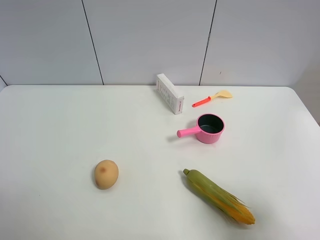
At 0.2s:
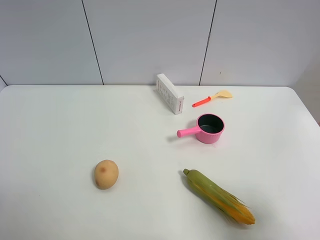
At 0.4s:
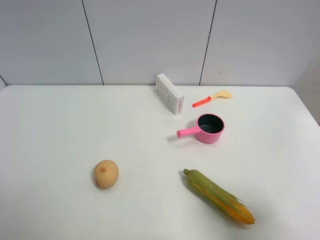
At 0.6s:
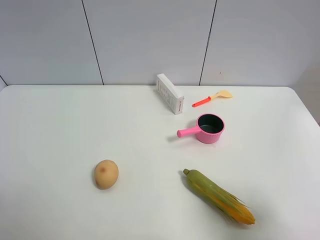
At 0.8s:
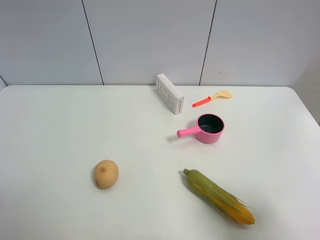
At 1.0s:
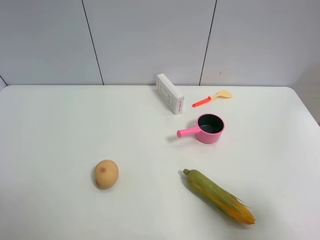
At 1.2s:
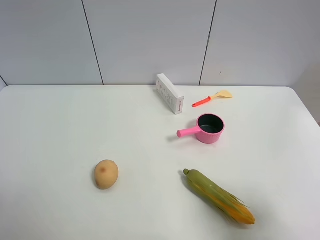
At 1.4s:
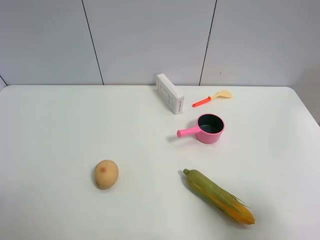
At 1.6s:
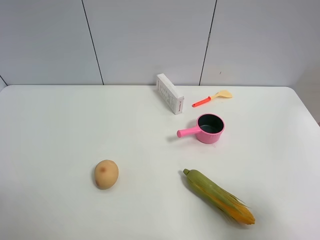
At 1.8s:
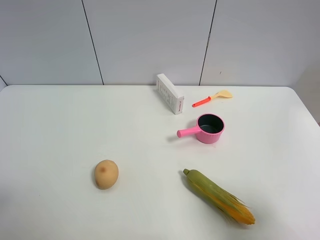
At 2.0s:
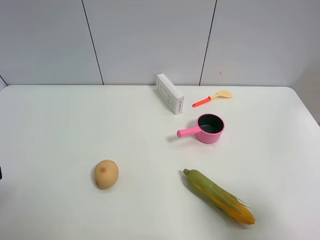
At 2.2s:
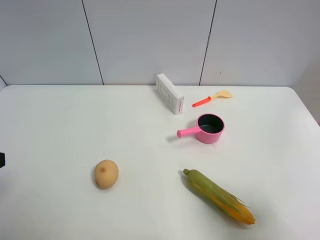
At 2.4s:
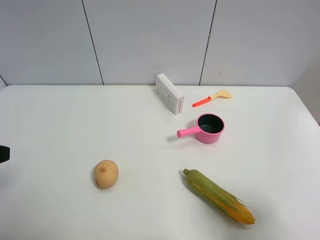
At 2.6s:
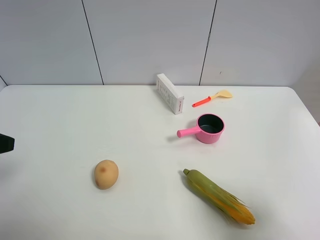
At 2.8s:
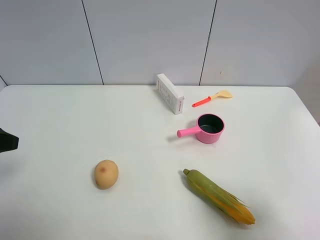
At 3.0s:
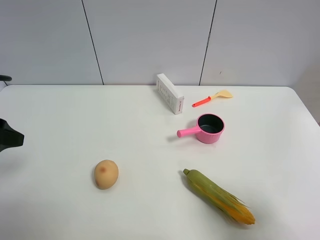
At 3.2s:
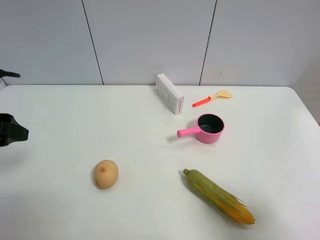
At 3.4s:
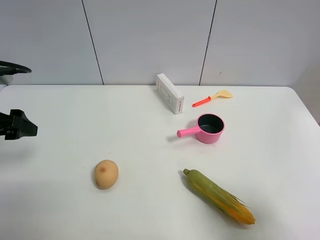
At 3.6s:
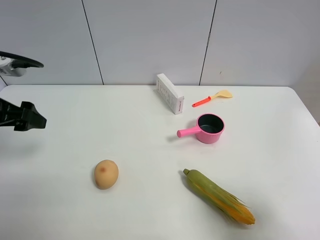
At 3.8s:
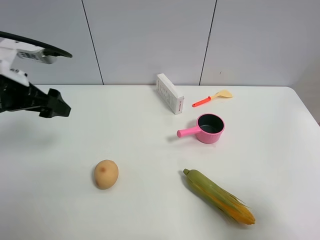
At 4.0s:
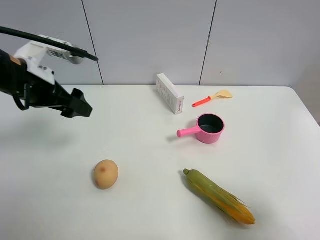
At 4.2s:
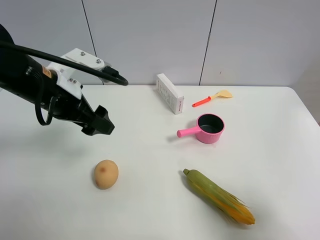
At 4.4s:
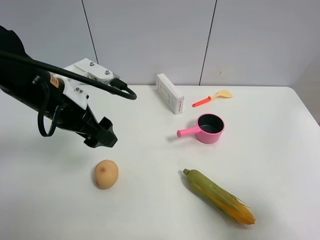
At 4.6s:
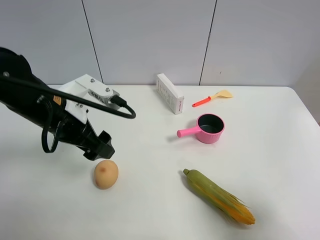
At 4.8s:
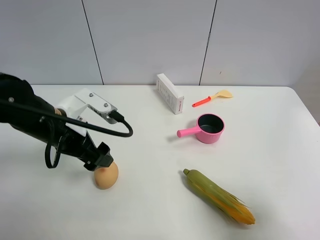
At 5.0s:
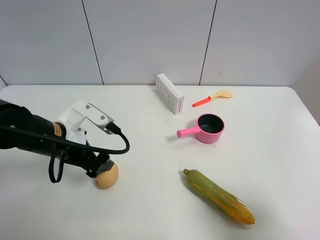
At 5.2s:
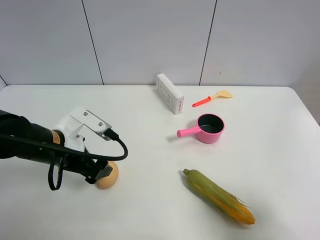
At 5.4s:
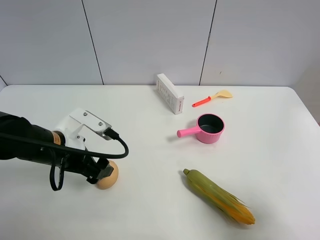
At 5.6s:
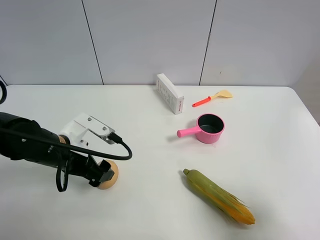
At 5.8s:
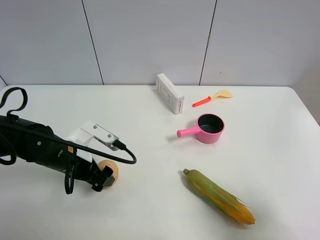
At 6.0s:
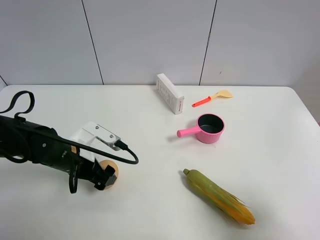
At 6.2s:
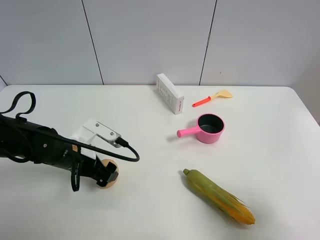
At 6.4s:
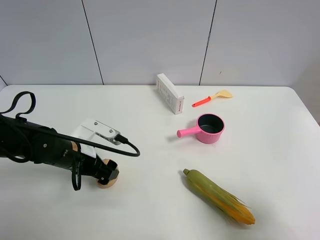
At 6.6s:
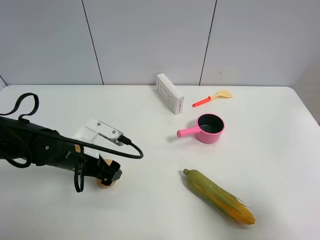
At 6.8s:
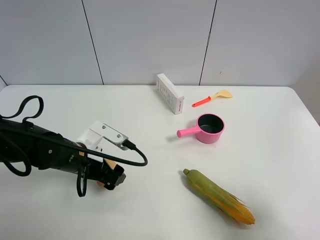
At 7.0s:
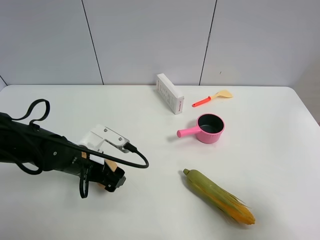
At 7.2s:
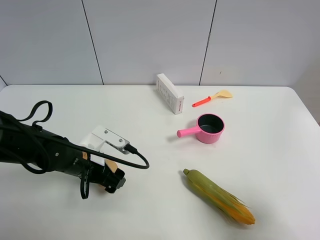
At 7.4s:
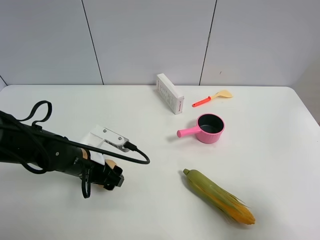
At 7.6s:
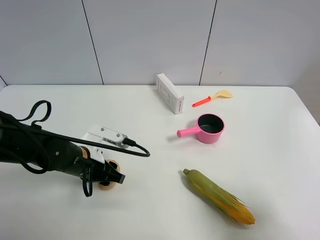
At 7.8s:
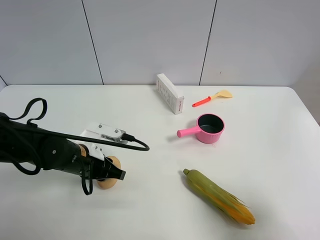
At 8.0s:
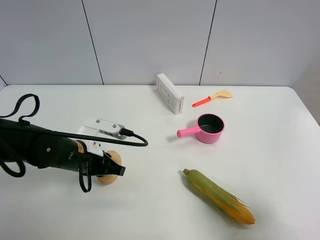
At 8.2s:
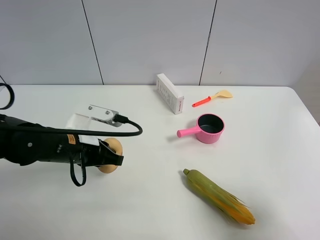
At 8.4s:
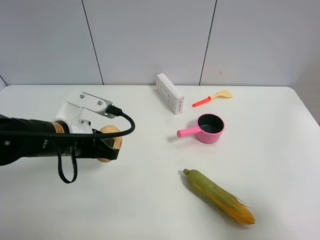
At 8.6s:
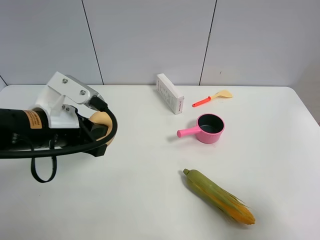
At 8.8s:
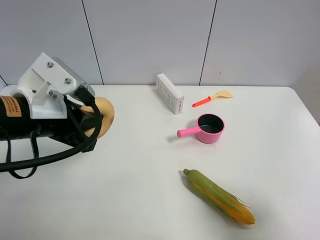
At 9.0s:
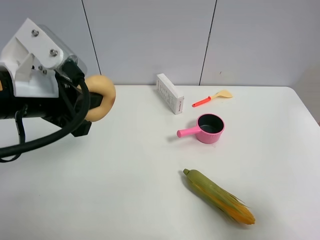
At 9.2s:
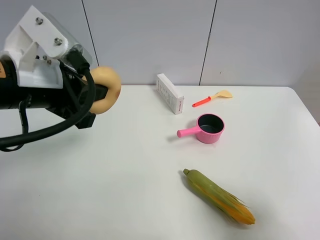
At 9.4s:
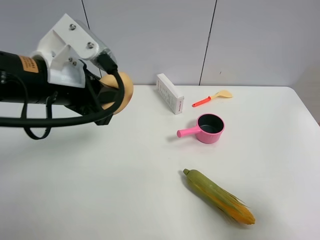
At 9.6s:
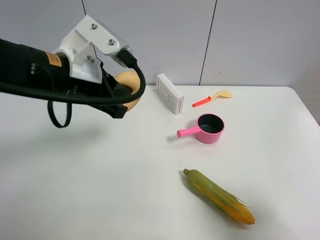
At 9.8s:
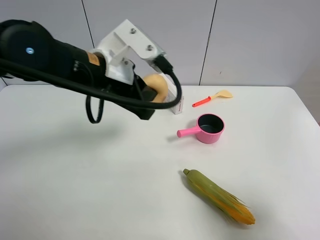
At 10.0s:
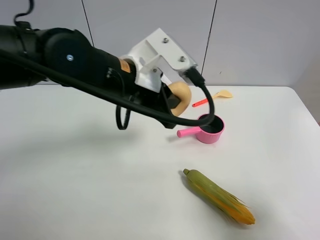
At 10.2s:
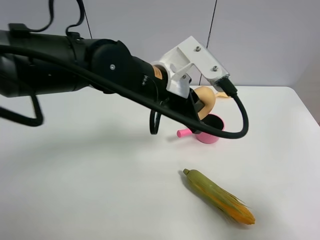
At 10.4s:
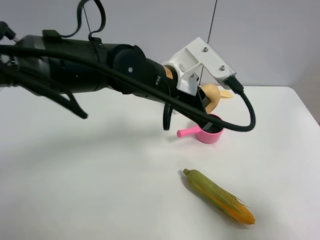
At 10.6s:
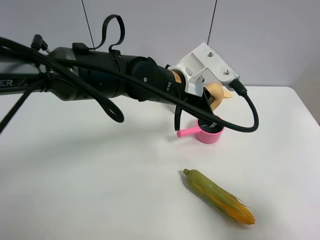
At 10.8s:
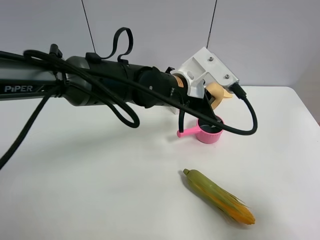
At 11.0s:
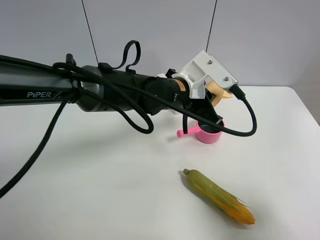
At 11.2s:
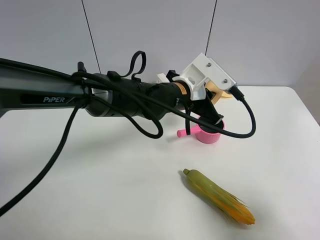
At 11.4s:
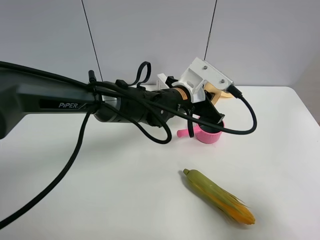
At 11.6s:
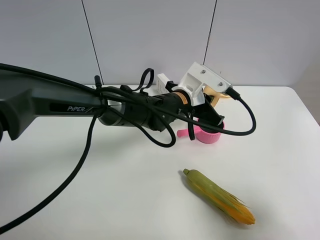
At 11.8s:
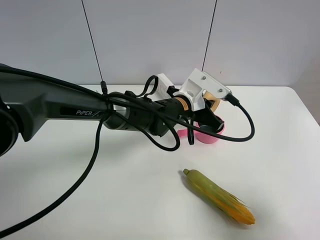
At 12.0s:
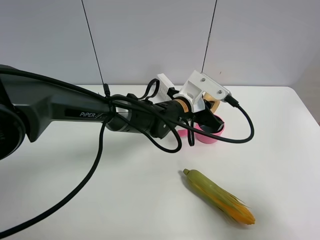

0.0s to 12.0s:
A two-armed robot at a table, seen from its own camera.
Task of the whole recording: the gripper move the object.
Step, 0.0s to 7.6s: Grasp the egg yolk pastry with the left gripper.
1.6s to 3.0s: The left gripper shifts approximately 15 cm forward.
3.0s to 4.4s: The left gripper goes some 15 cm to the right and forward.
4.4s to 6.0s: The left gripper goes some 15 cm downward.
6.0s to 7.6s: The left gripper closes its fingers.
7.6s to 9.0s: The left gripper is displaced upward by roughly 20 cm.
9.0s to 10.4s: The left gripper goes about 20 cm to the right and forward.
10.4s to 12.0s: The left gripper heads downward, covering roughly 10 cm.

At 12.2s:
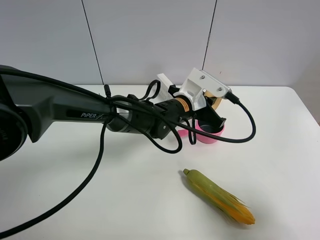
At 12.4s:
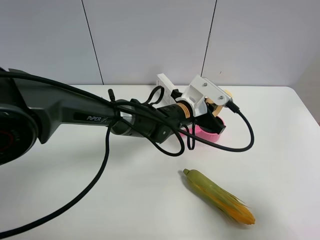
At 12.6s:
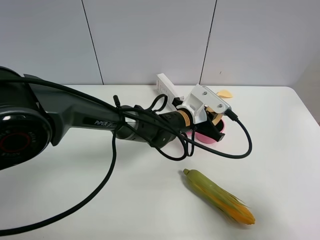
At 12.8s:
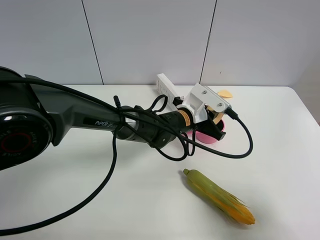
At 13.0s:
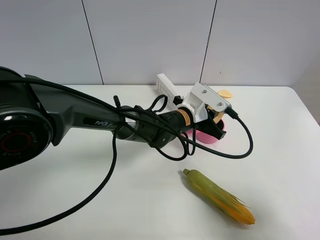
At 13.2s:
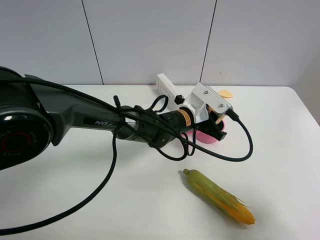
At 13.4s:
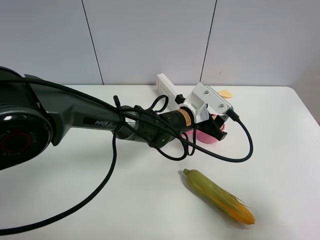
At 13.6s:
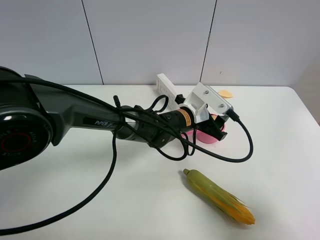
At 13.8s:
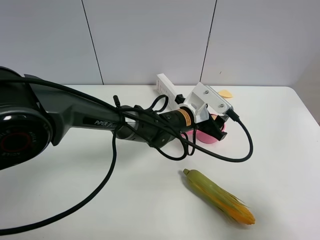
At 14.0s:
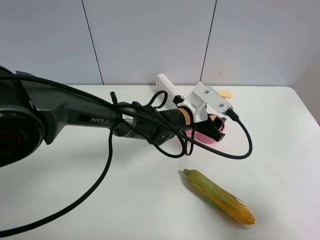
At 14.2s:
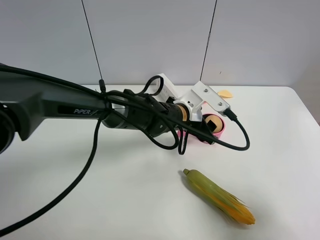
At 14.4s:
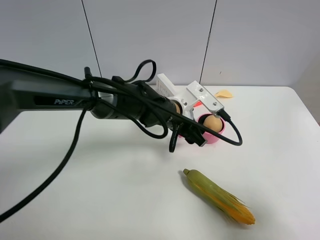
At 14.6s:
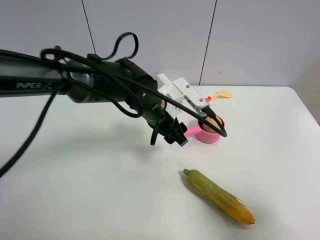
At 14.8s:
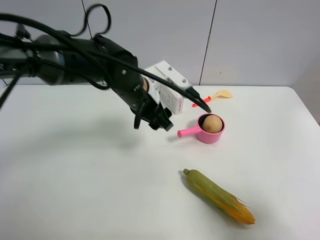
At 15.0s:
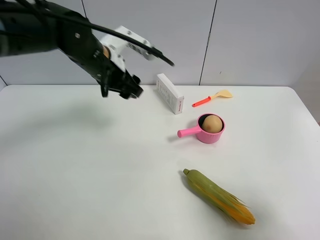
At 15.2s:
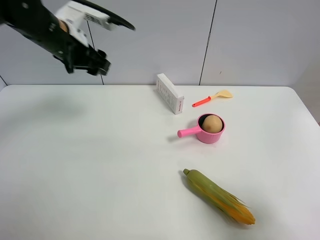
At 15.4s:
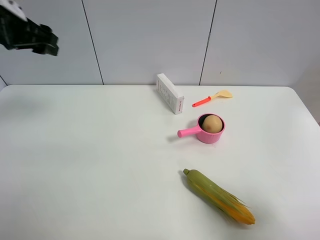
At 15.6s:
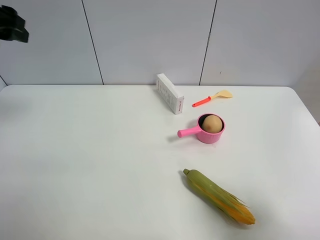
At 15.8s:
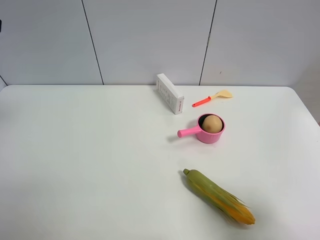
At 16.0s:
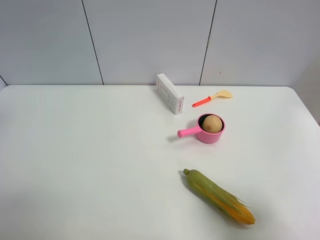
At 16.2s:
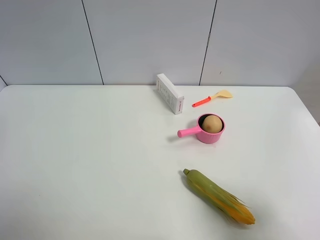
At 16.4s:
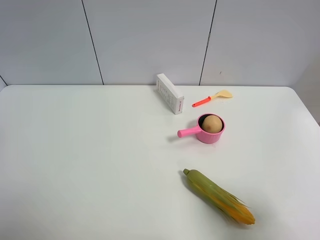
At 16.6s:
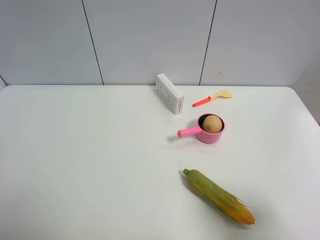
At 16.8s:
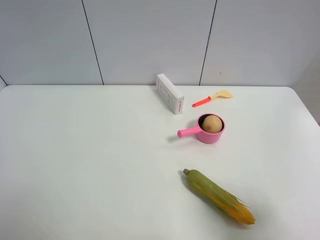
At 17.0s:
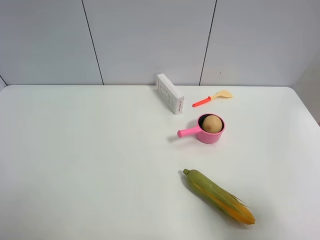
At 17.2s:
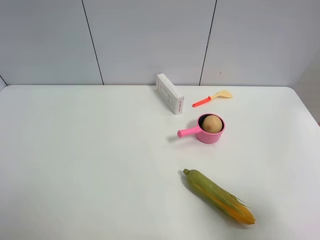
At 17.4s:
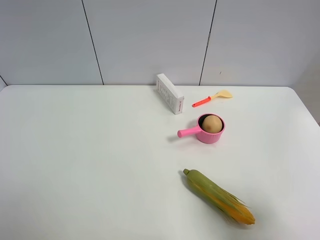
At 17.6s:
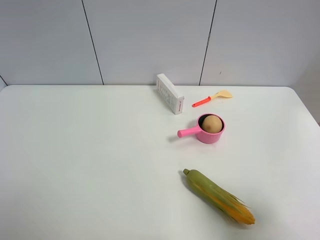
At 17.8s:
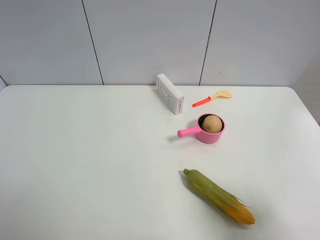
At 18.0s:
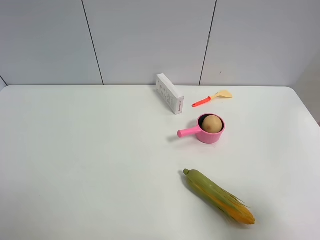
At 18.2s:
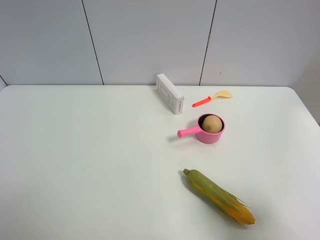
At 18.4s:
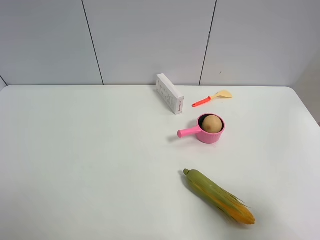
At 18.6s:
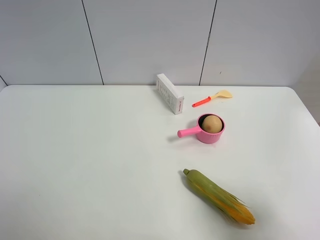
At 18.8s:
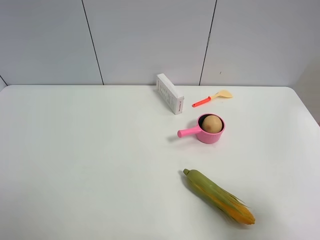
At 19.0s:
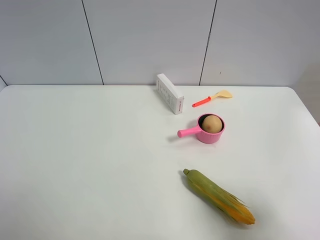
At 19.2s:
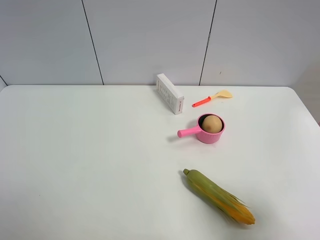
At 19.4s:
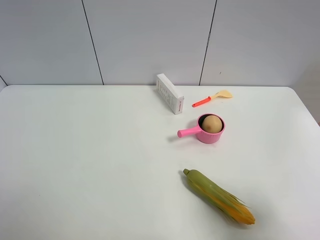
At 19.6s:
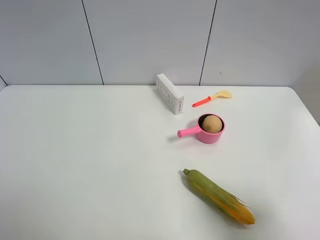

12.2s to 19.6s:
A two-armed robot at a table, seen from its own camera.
Task of the whole recording: the gripper move the object.
Step, 12.2s to 14.4s: Place the egg yolk pastry into the pink pot with the left gripper.
12.2s to 13.6s: The left gripper opens.
13.6s to 15.2s: The left gripper heads to the left and upward, covering some 30 cm.
15.2s to 16.6s: The left gripper shifts about 25 cm backward and to the left.
18.2s to 19.6s: Both grippers stay put.

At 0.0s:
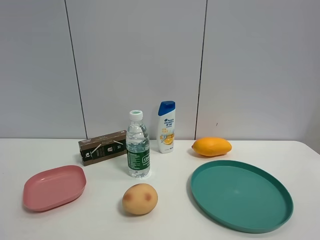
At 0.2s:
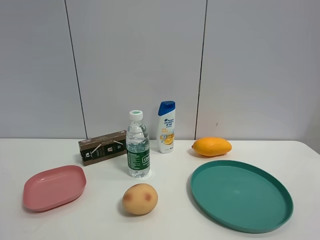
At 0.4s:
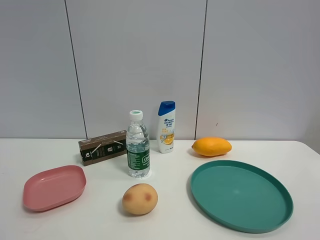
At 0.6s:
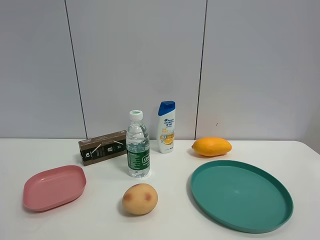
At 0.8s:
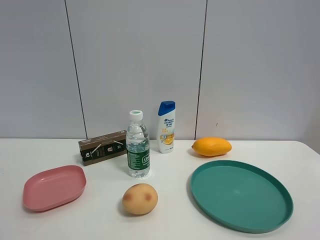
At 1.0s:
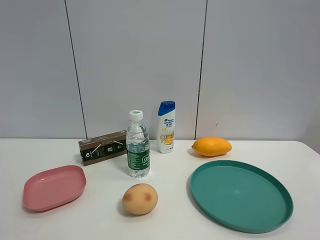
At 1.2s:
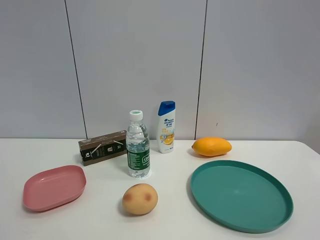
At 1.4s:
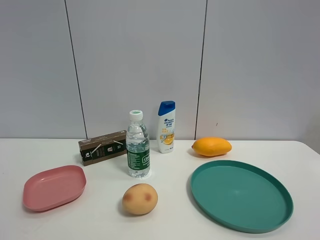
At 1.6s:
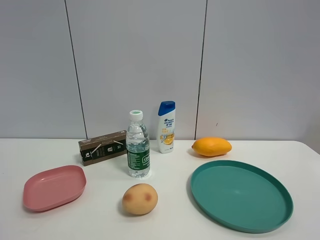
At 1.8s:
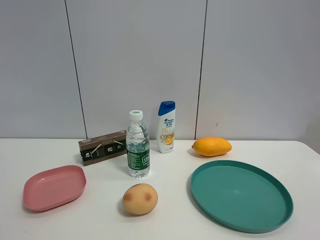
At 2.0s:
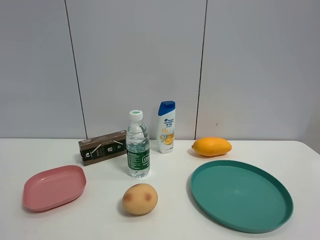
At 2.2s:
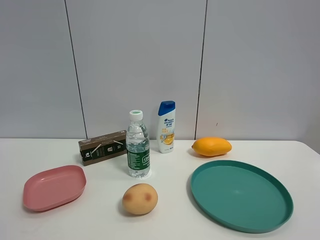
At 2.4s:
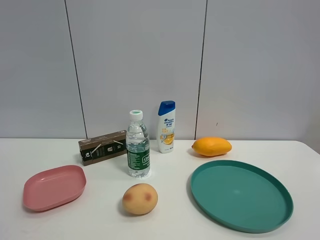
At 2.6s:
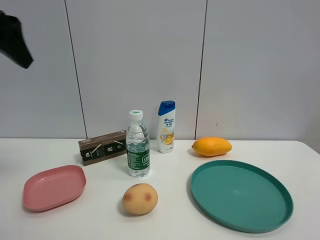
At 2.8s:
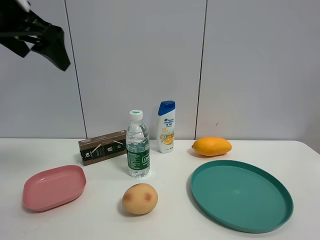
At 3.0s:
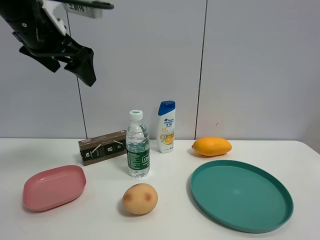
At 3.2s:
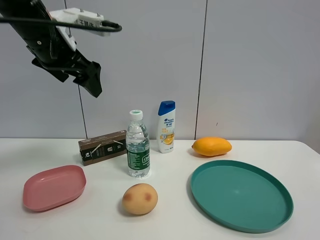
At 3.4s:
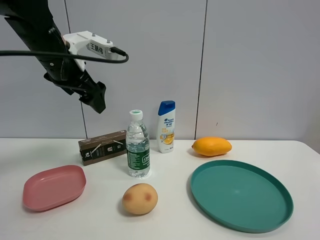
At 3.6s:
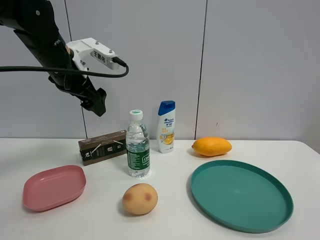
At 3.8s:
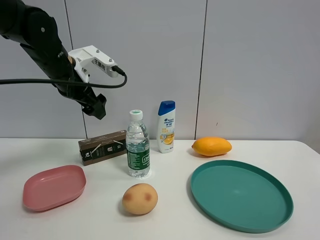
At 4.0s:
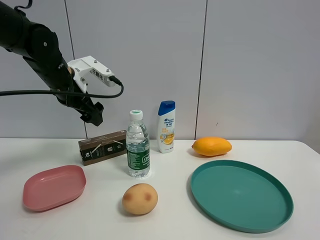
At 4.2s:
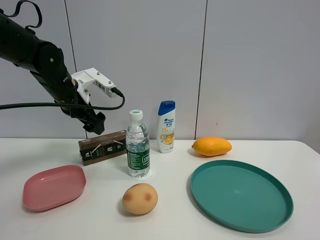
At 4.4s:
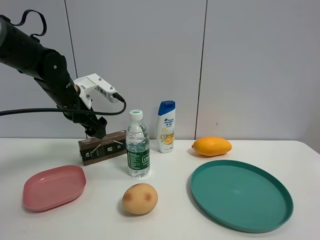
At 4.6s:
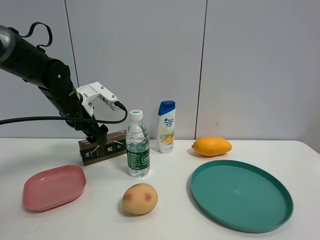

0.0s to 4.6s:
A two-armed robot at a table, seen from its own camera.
Task of the whole recording: the gripper move the object.
1.6s to 3.0s: The left gripper moves forward, approximately 35 cm.
3.0s to 4.6s: The left gripper travels downward and forward by about 20 cm.
